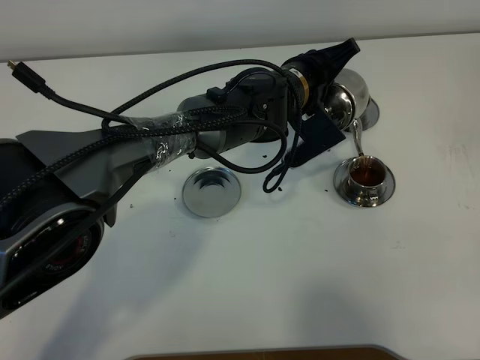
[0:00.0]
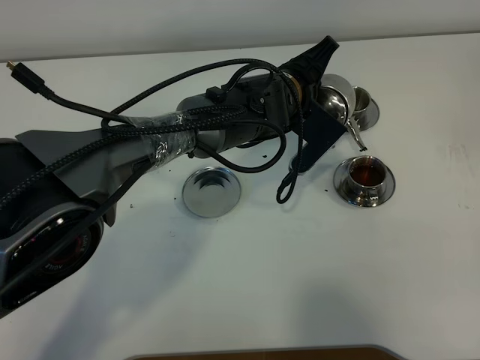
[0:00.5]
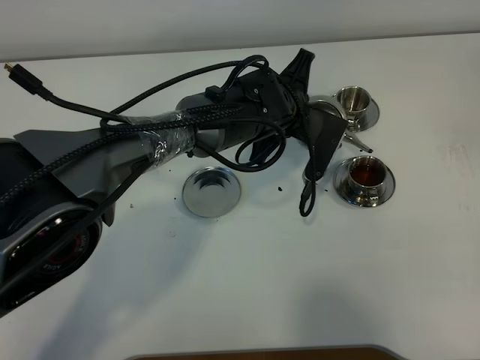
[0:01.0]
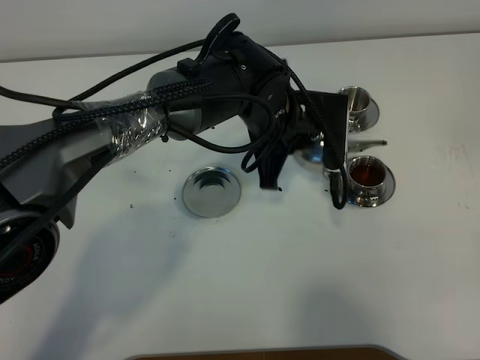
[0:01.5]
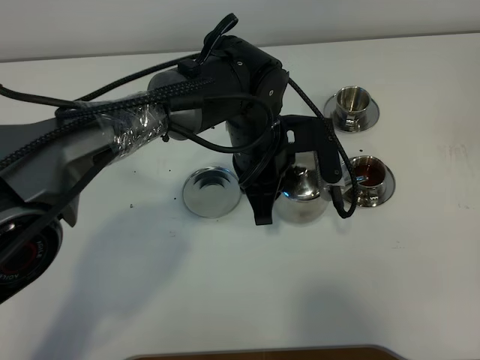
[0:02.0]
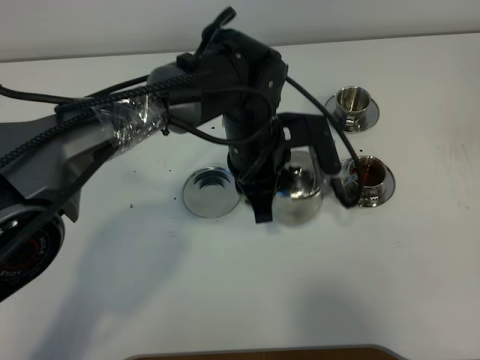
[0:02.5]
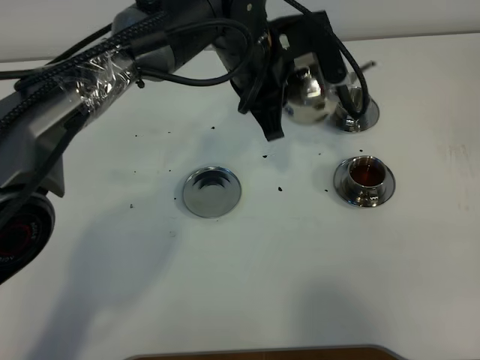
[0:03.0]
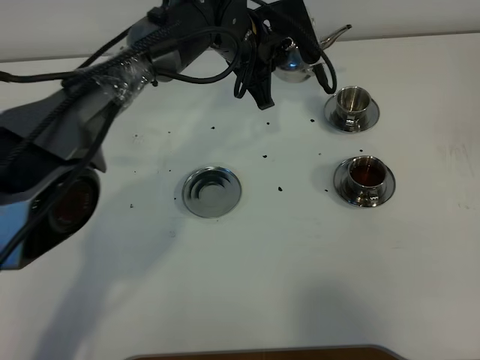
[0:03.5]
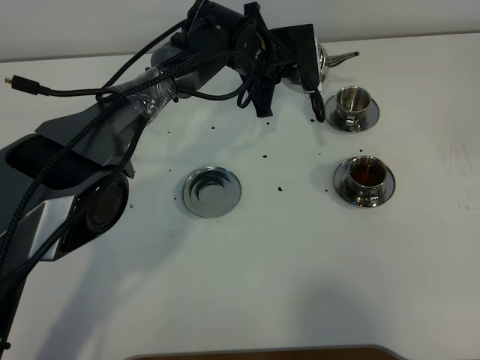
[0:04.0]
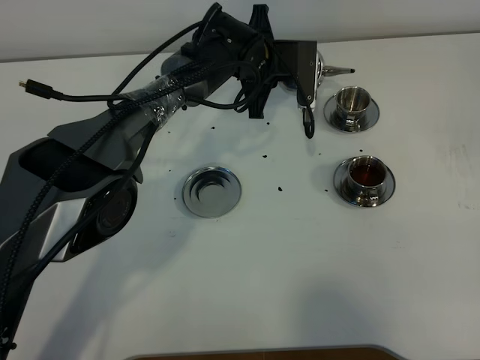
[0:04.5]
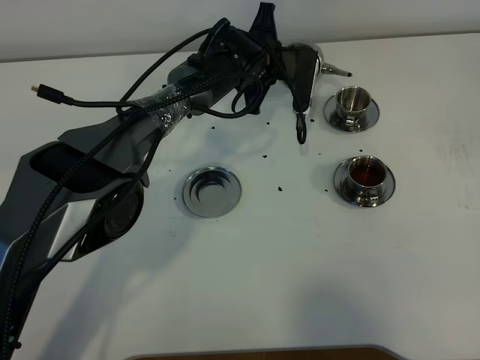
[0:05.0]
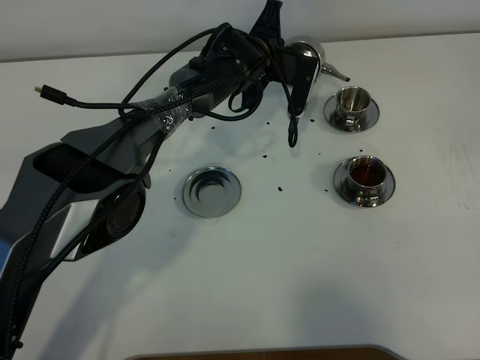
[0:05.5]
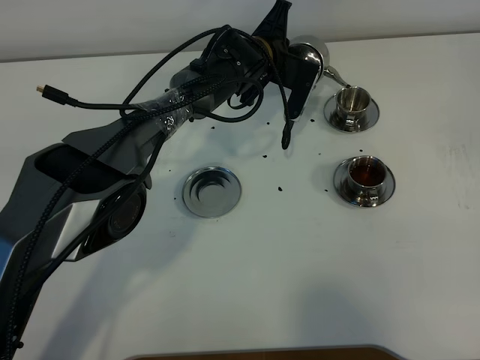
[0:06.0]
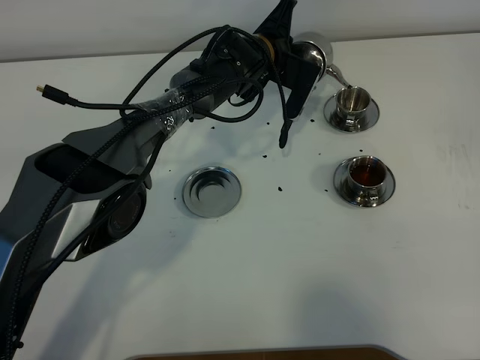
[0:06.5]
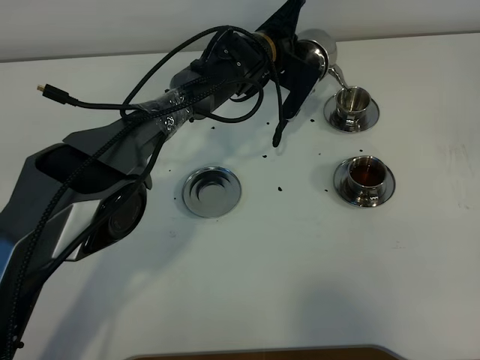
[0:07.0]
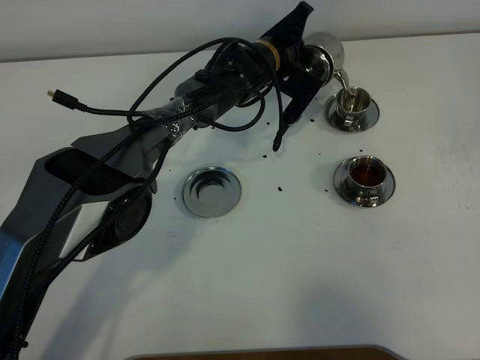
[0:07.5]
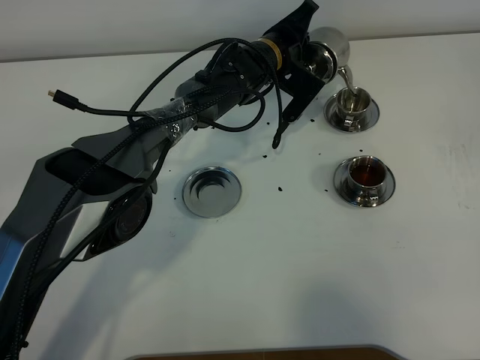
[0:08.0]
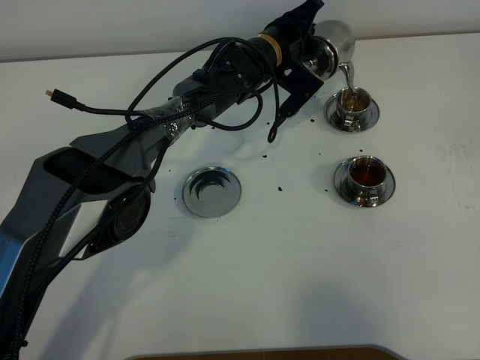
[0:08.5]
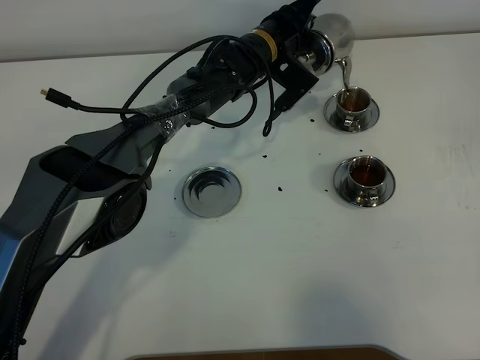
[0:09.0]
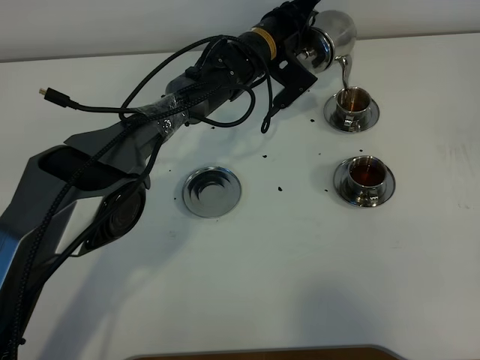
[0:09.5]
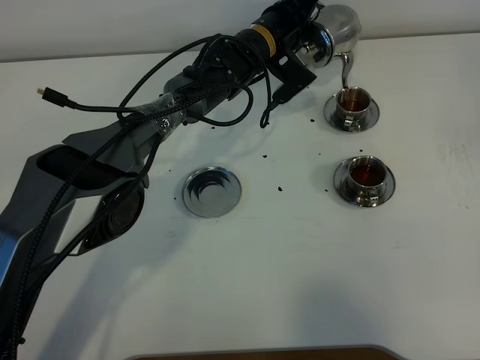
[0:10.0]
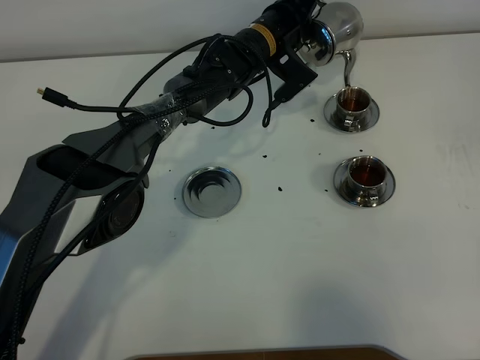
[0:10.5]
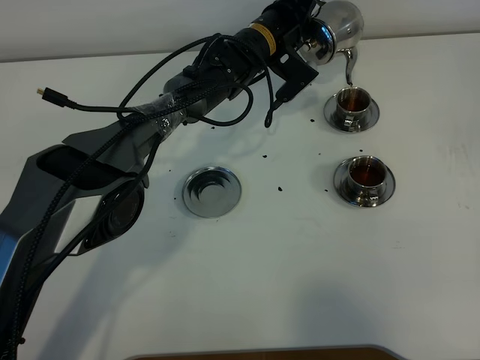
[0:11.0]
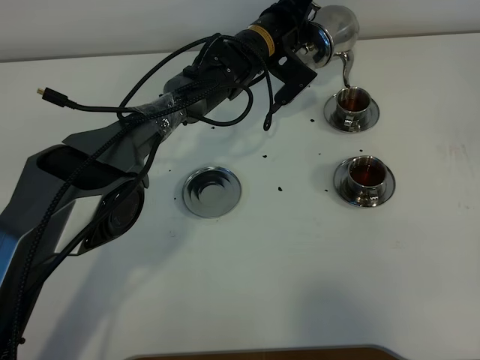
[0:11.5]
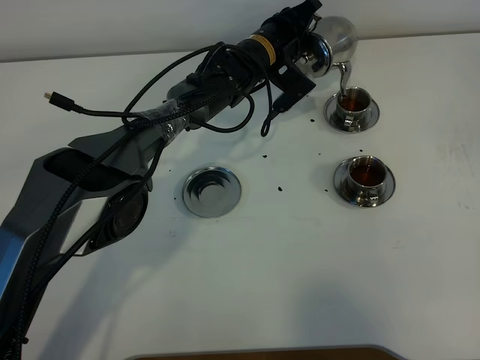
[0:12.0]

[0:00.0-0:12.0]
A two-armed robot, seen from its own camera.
Task of the whole recording: grasp the stainless steel teapot and pour the tea into the two stainless steel teacups one by one, put the stainless steel teapot back in its original place.
0:00.0 to 0:02.0: The left gripper travels backward by roughly 5 cm.
0:02.0 to 0:04.0: The left gripper moves forward, about 15 cm.
0:08.0 to 0:12.0: There are only small adjustments of the grippers.

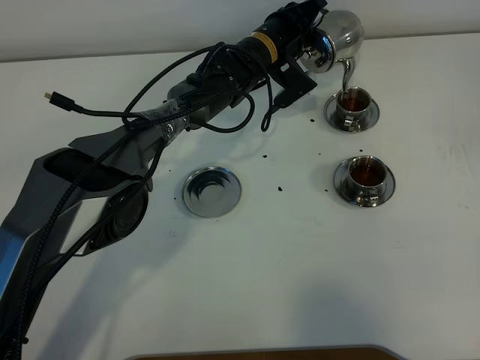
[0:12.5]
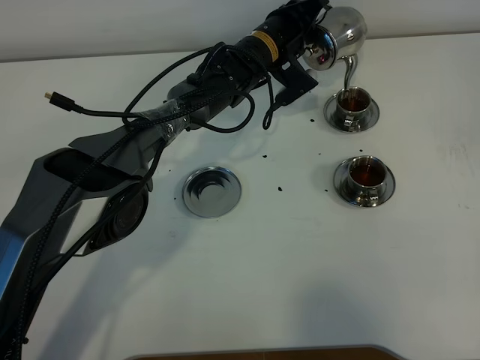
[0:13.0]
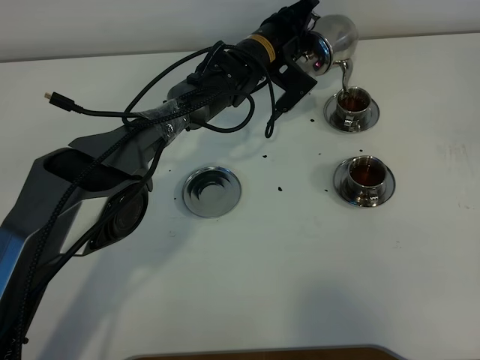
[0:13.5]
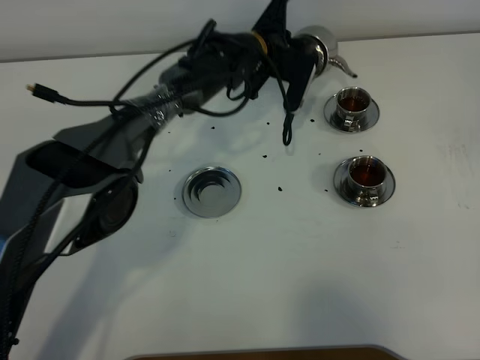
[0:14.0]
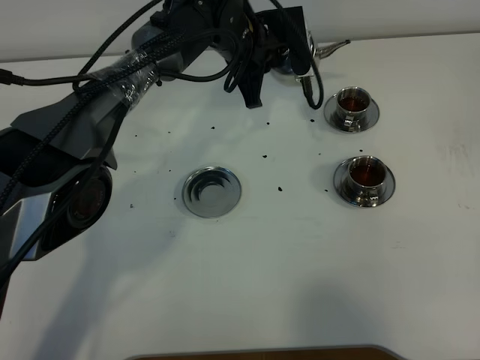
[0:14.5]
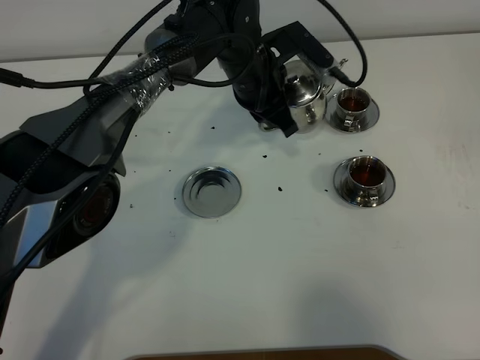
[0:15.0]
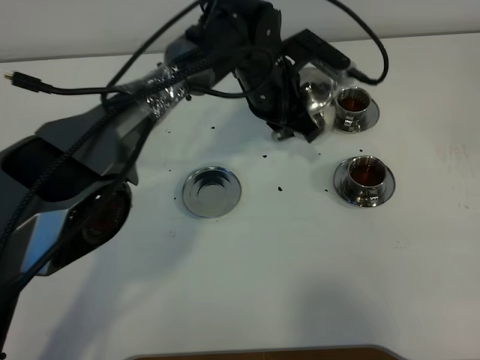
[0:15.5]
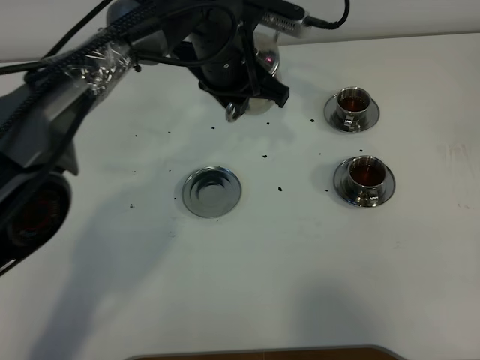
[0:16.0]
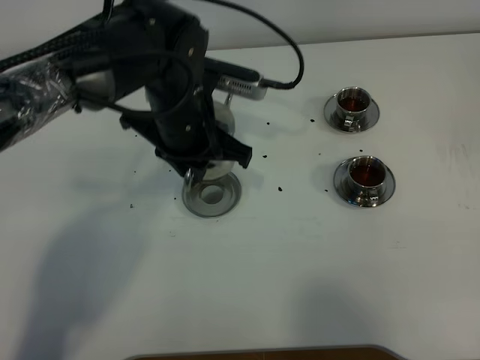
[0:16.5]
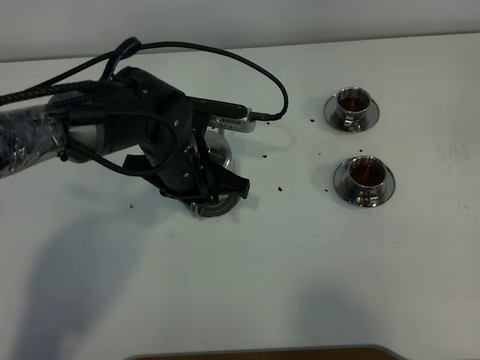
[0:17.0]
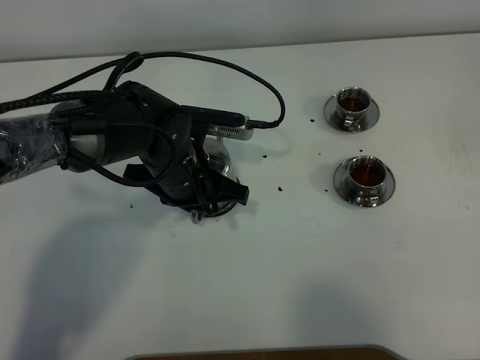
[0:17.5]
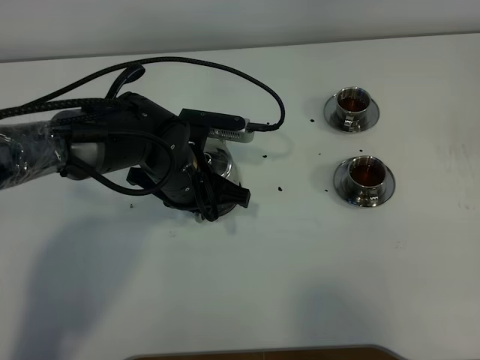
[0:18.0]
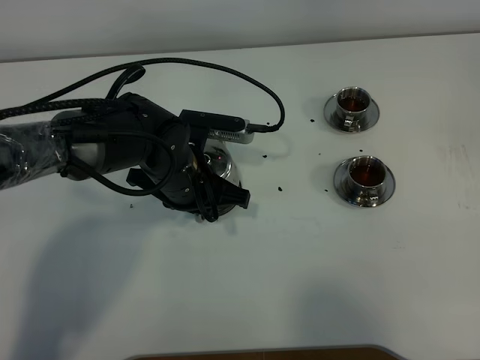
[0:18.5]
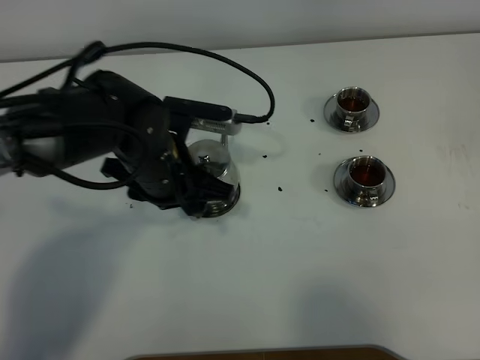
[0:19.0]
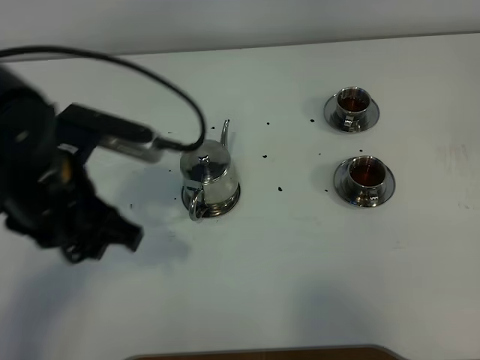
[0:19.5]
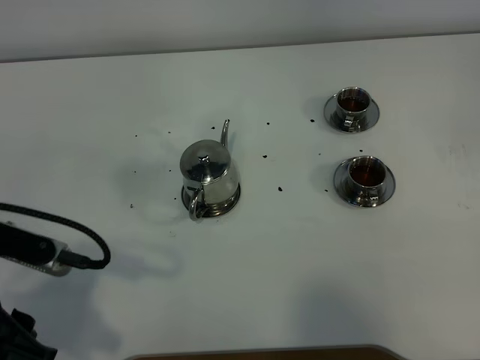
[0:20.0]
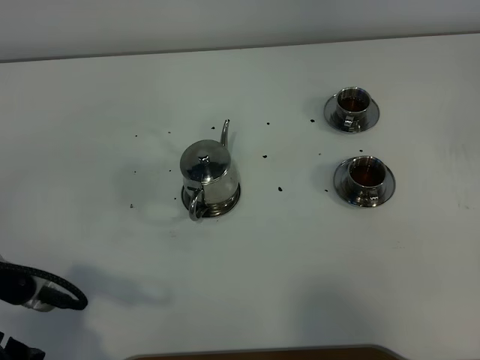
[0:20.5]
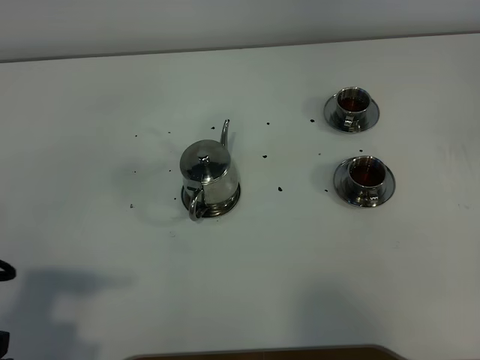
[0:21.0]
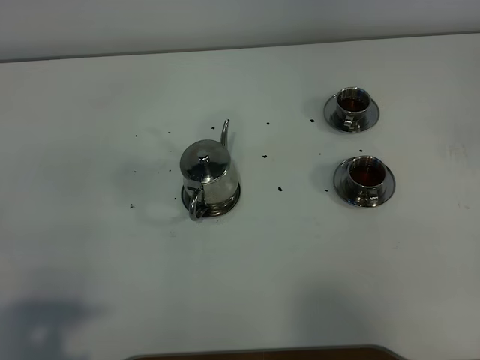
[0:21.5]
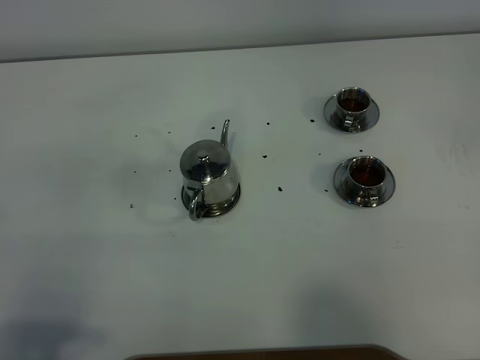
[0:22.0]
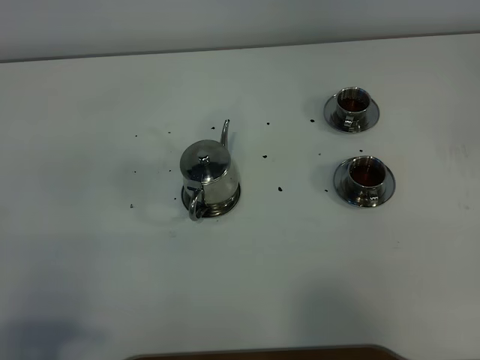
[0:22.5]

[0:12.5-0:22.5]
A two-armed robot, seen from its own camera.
Task of the whole recording: grasp the stainless steel teapot and pour the tea into the two stainless steel teacups one by one, put the stainless steel teapot back in its original place.
0:12.5 to 0:14.5: The left gripper travels upward by approximately 5 cm.
0:14.5 to 0:16.5: The left gripper heads backward, covering roughly 15 cm.
0:16.5 to 0:18.5: The left gripper is displaced downward by approximately 5 cm.
0:18.5 to 0:20.5: The left gripper goes roughly 30 cm backward, to the left and upward, and opens up.
0:20.5 to 0:22.5: The left gripper goes roughly 10 cm backward.

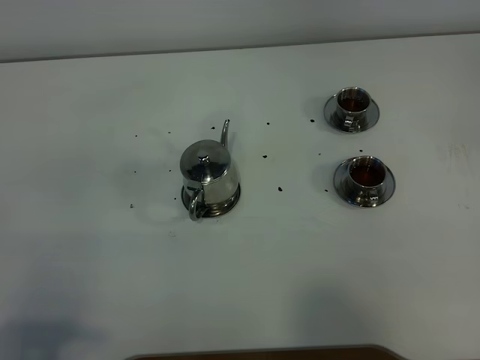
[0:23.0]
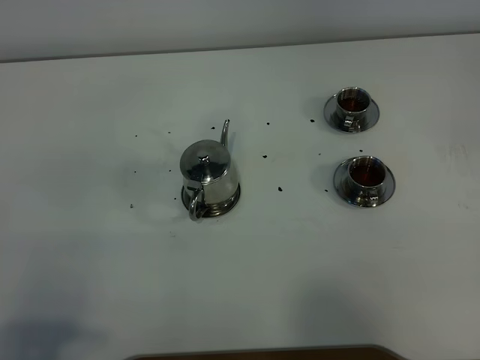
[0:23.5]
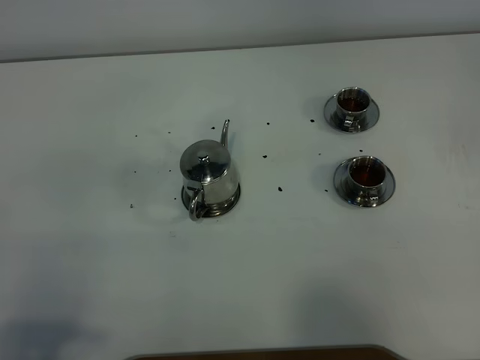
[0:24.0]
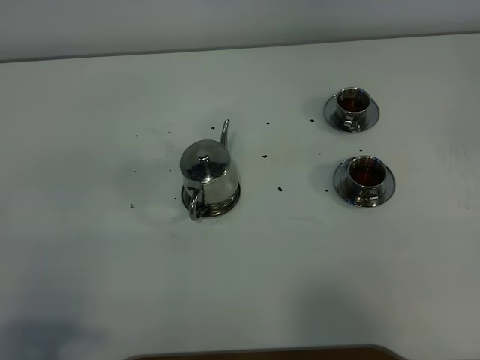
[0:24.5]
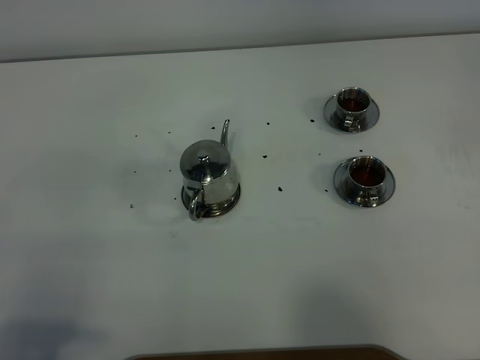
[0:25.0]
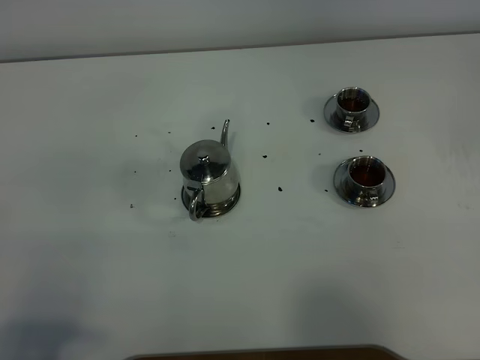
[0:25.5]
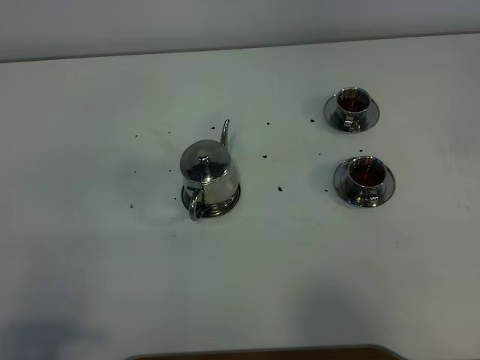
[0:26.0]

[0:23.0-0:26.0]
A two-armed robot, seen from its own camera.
Task of the whole recording: grasp the stainless steel teapot and pour the tea into the two stainless steel teacups one by one, put the stainless steel teapot back in its original place.
0:23.0 to 0:26.0: Both grippers stay about where they are.
